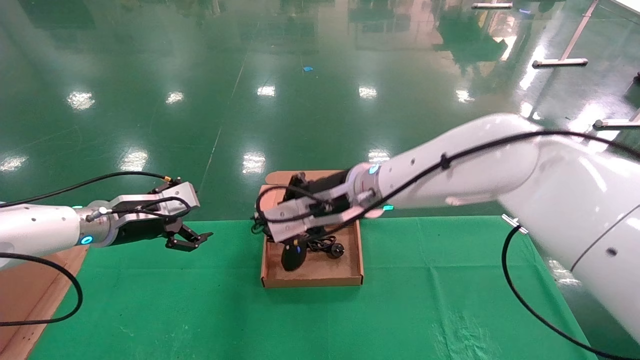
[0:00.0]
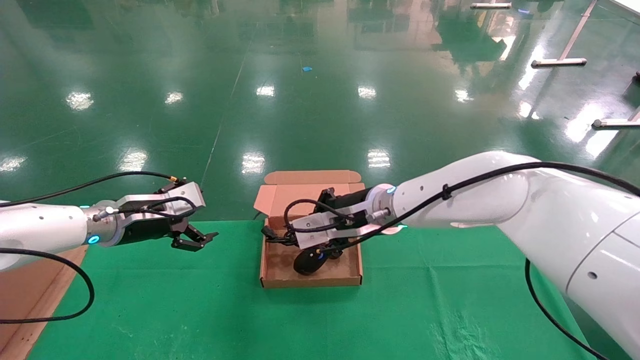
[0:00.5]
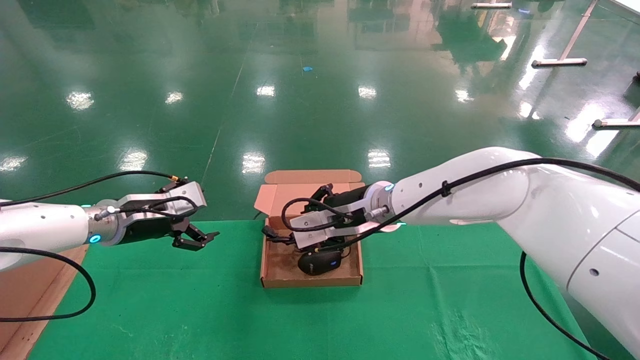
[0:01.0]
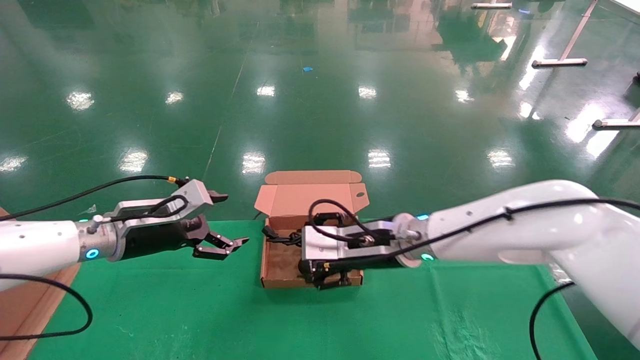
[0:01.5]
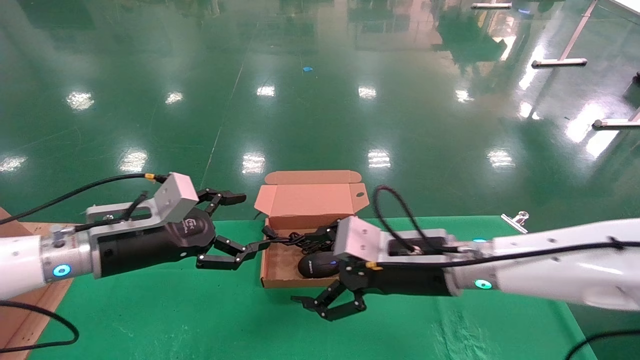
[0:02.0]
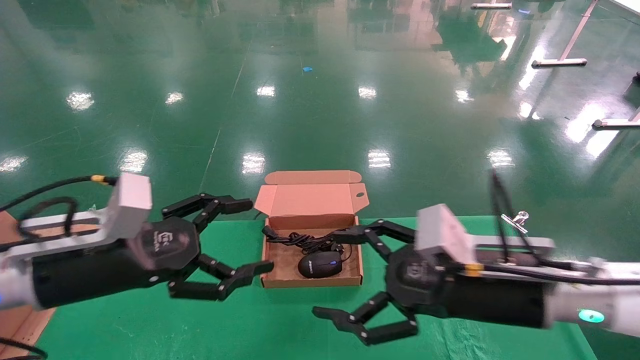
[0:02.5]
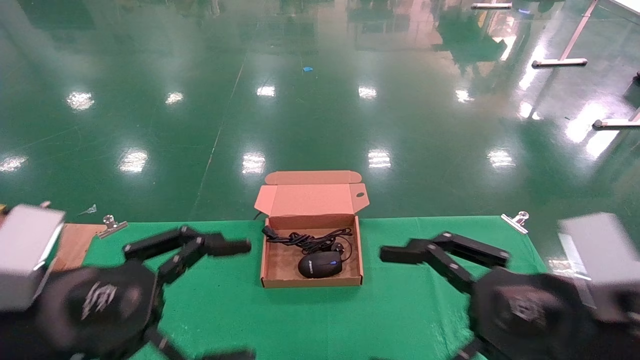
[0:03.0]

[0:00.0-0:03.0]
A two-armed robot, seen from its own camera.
0:00.0 to 0:01.5: The right gripper shifts some 5 cm downward, and opens.
0:01.5 to 0:03.0: The left gripper goes roughly 20 cm backward. The right gripper moves backward and to the right, approximately 25 cm, and opens up.
